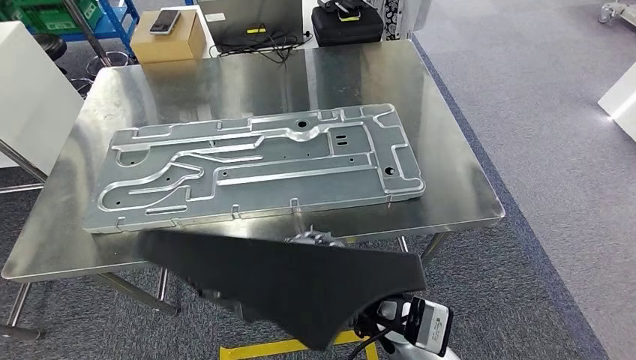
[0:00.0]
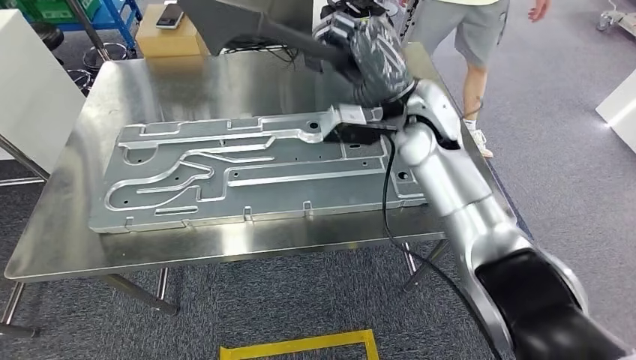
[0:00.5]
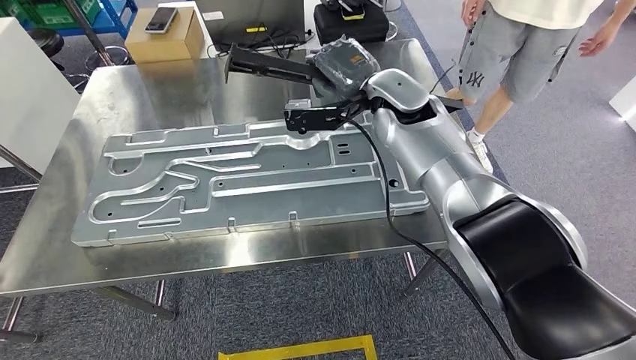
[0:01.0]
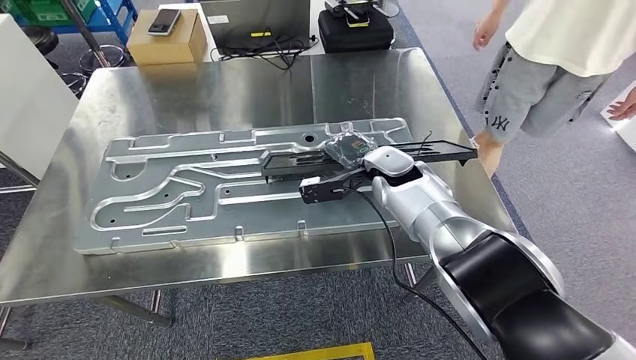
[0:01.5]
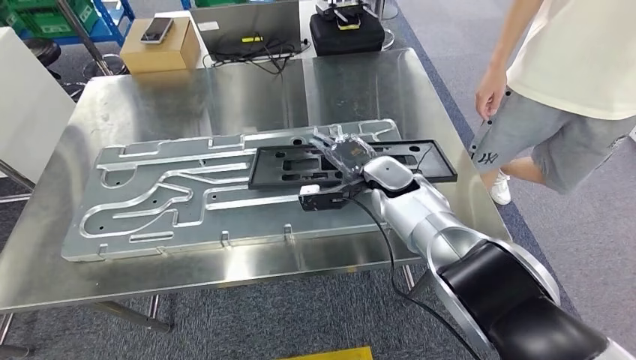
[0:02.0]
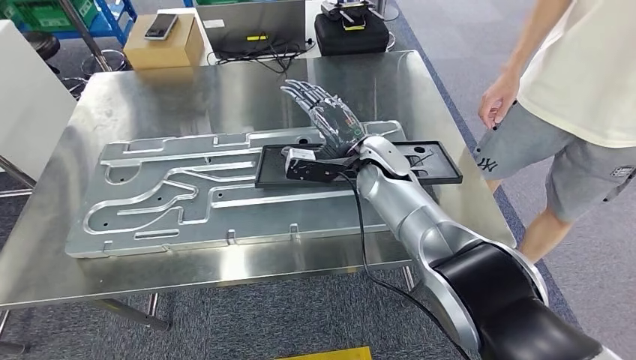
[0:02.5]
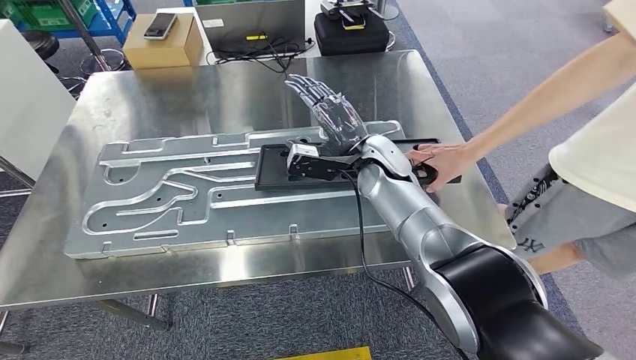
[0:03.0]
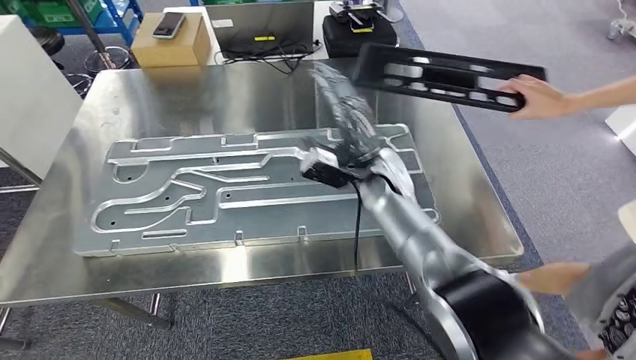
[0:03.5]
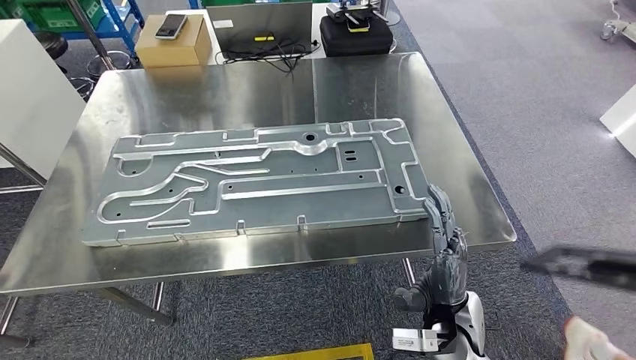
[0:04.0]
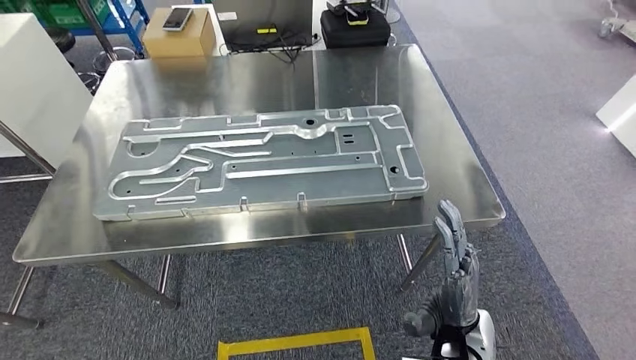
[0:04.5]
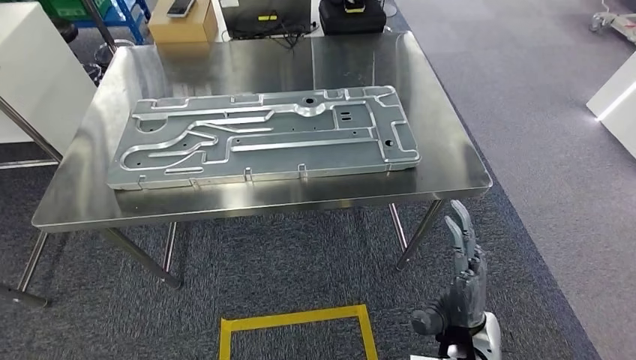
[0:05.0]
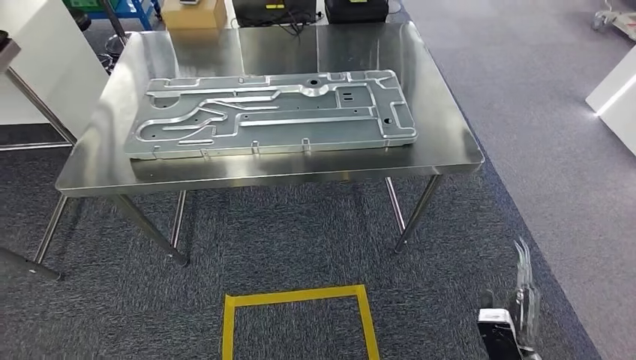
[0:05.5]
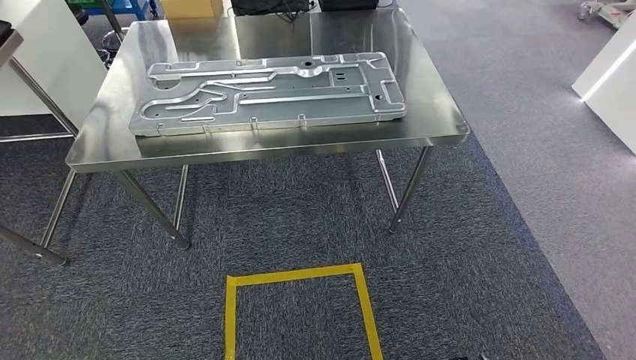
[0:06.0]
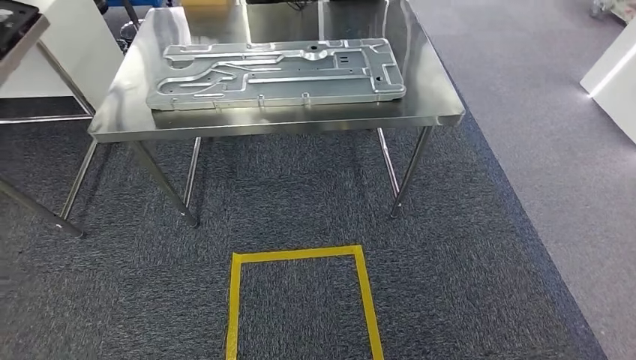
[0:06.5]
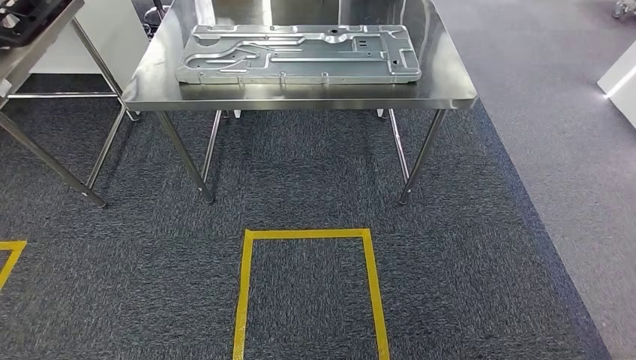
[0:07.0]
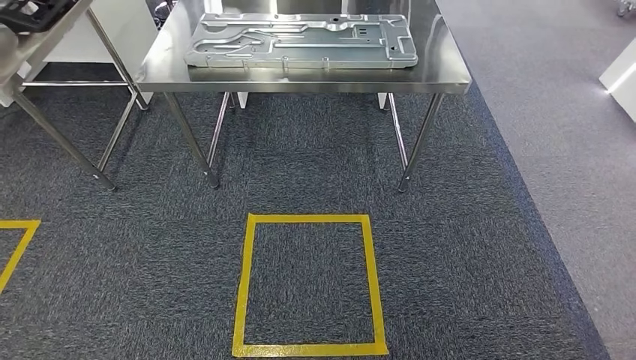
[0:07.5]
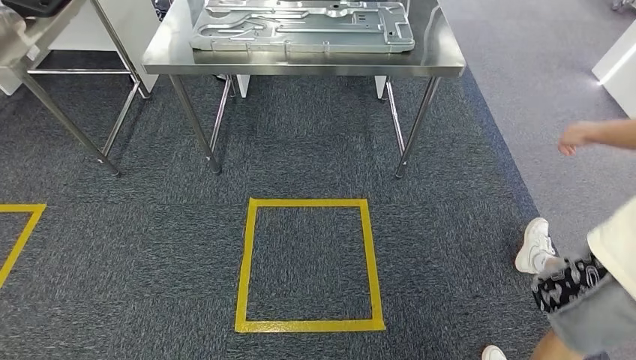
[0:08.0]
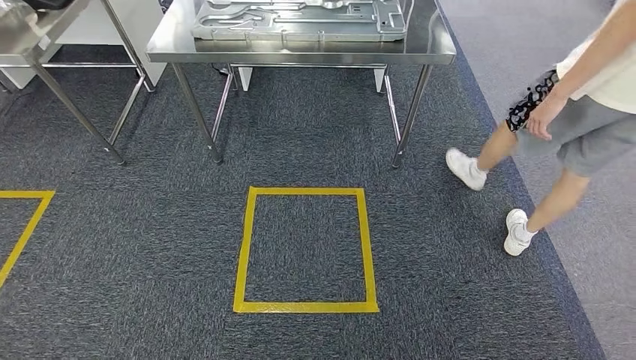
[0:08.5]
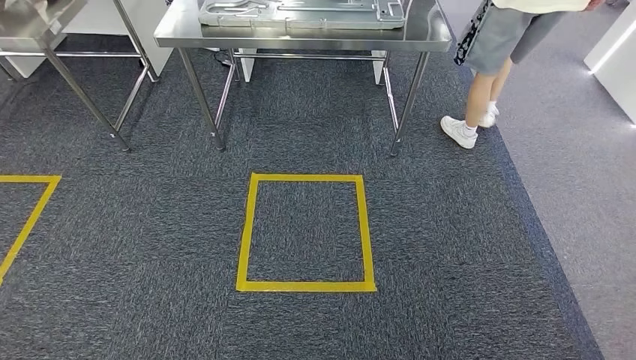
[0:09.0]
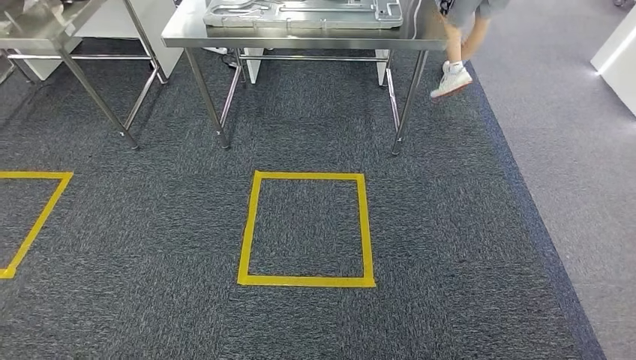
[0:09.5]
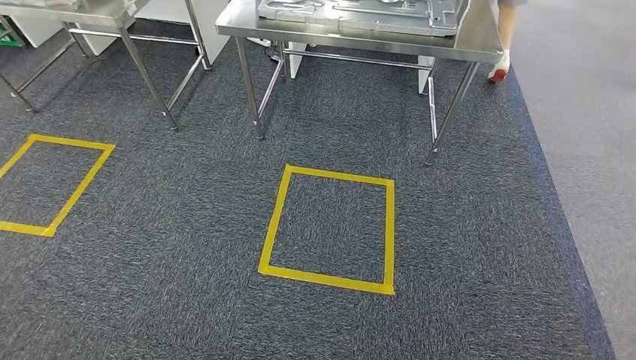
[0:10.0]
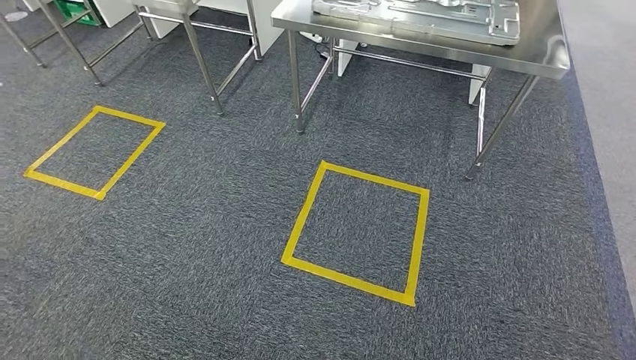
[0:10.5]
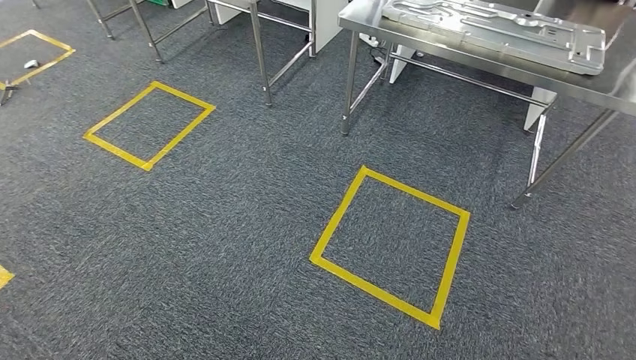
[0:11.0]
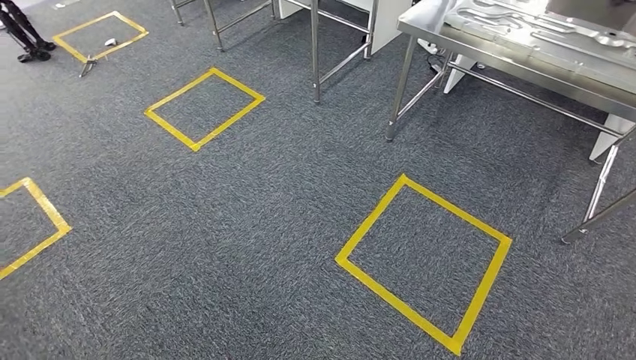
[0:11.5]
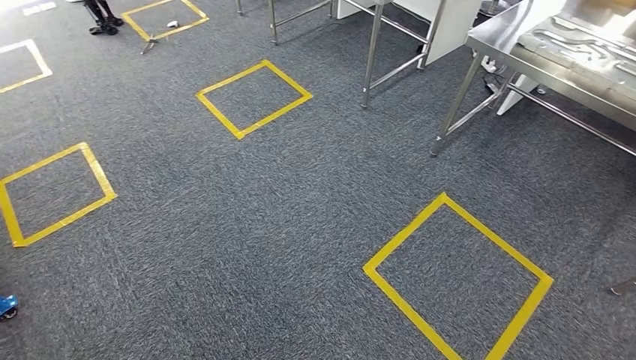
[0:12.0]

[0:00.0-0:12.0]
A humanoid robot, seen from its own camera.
Step, 0:00.0 to 0:04.5: Insert the large material into the corresponding slot on the workbench.

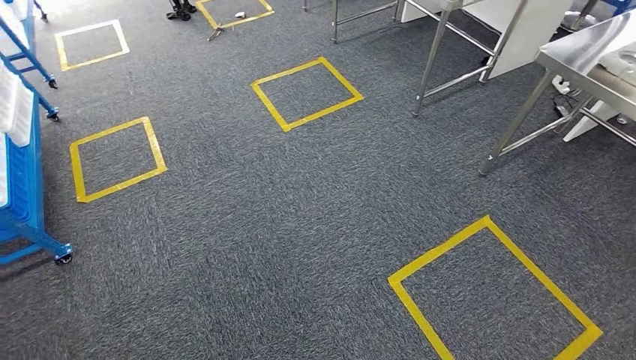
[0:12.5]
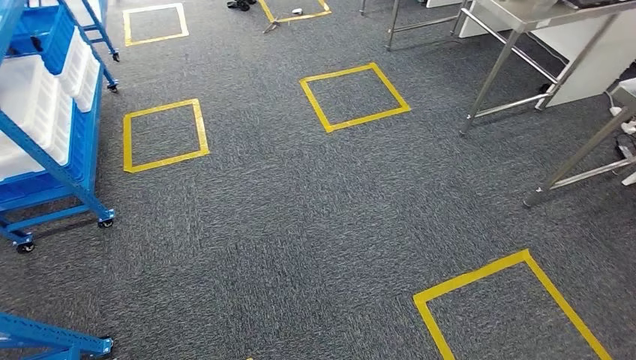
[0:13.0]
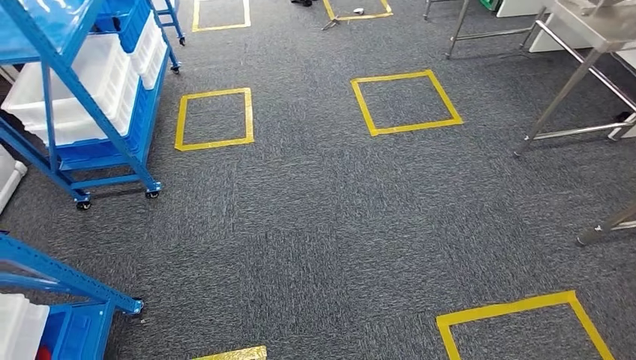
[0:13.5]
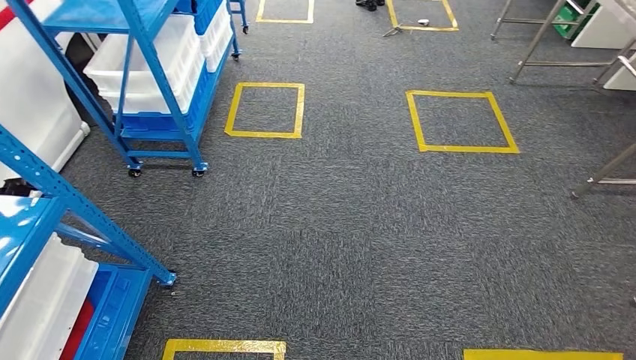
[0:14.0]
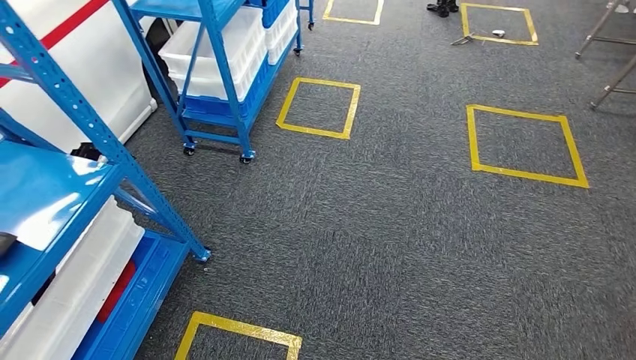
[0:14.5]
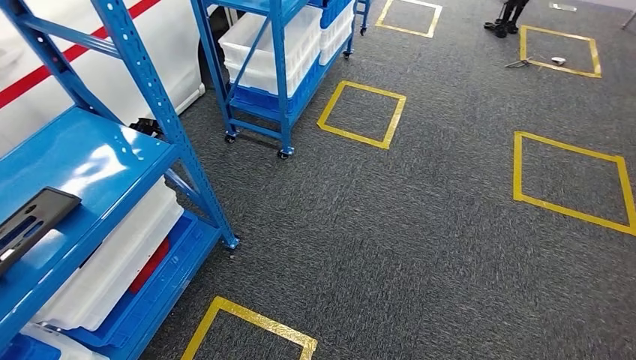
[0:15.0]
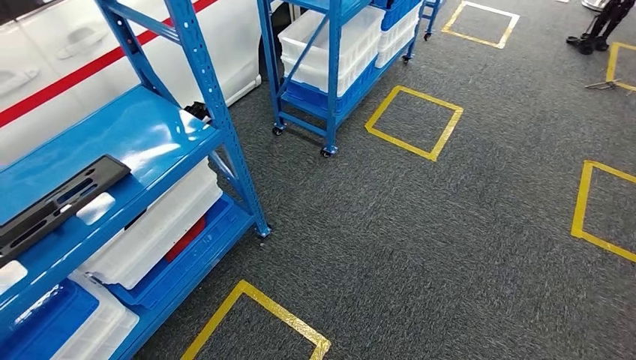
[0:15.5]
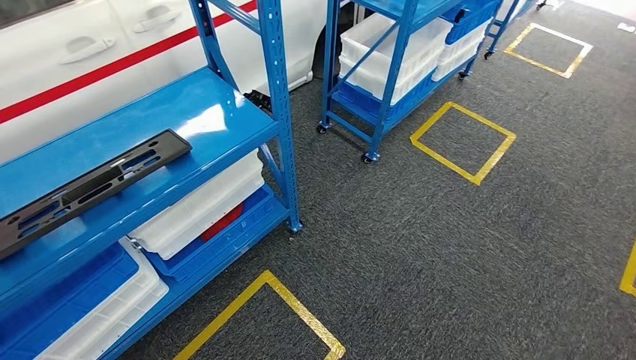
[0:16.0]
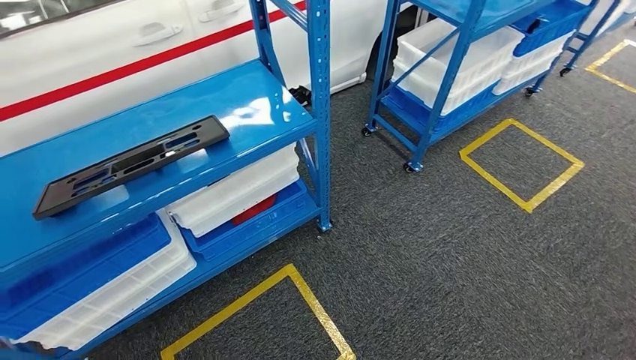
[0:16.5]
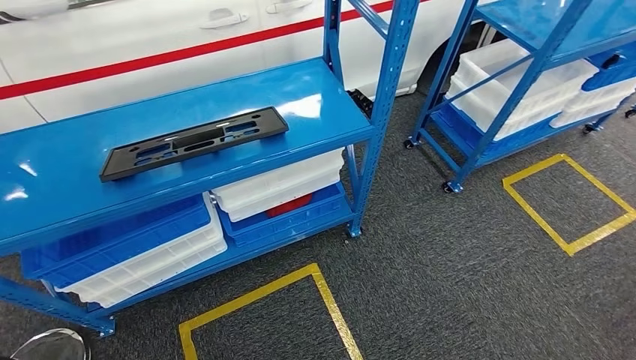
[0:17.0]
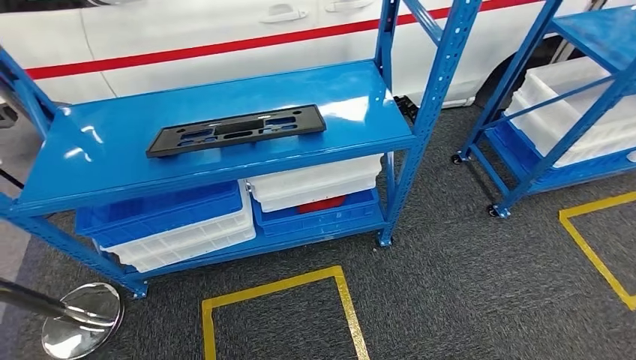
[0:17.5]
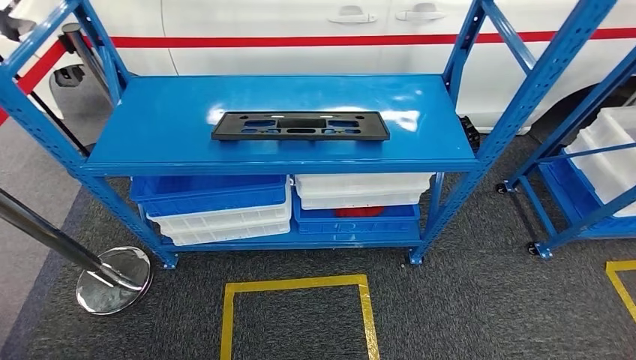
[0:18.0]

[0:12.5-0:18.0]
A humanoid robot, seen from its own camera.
Step, 0:12.5 to 0:18.0: Return to the initial position at the shelf.

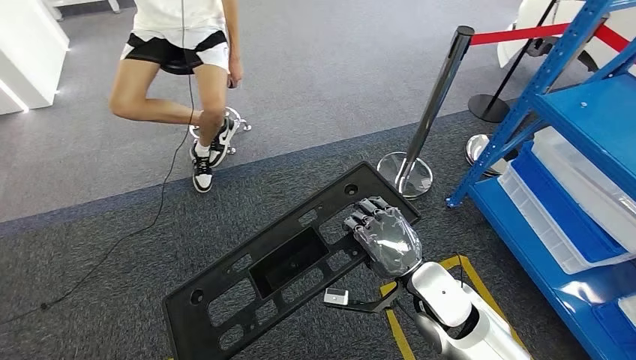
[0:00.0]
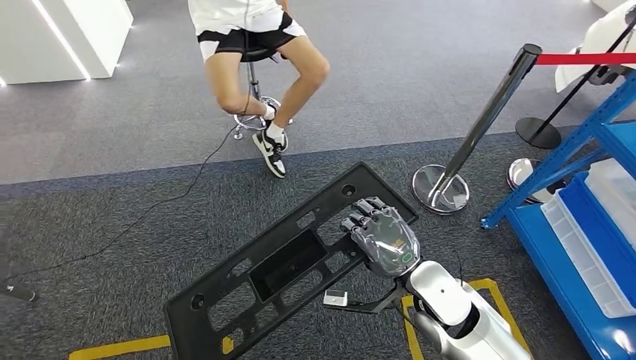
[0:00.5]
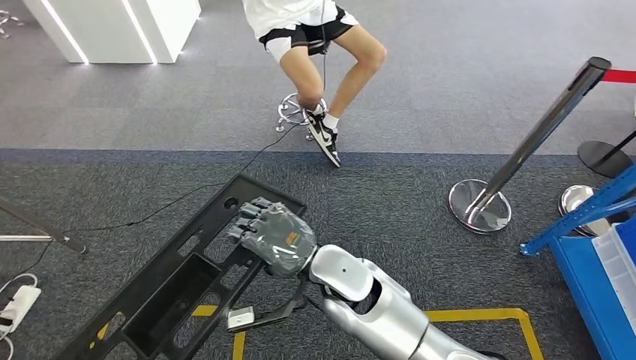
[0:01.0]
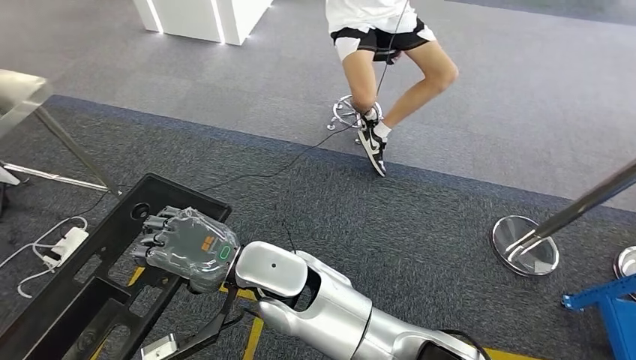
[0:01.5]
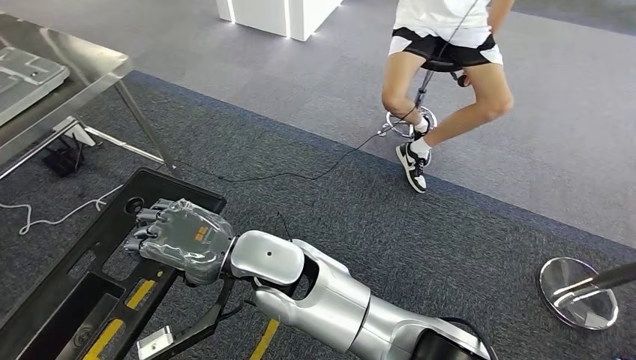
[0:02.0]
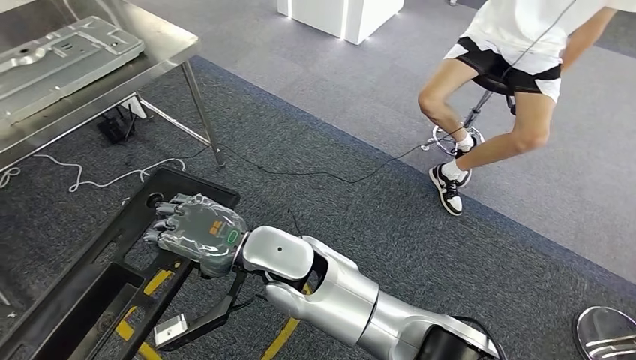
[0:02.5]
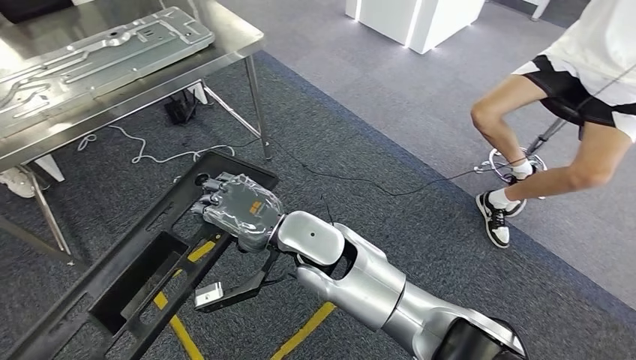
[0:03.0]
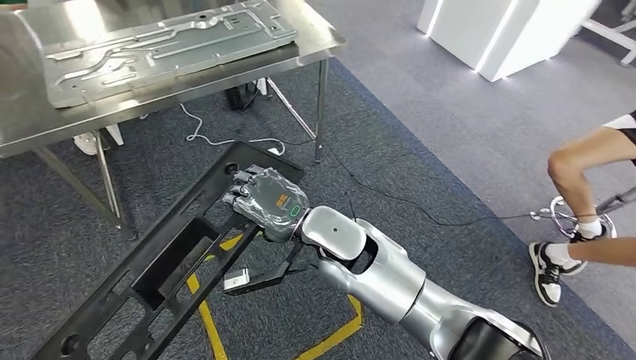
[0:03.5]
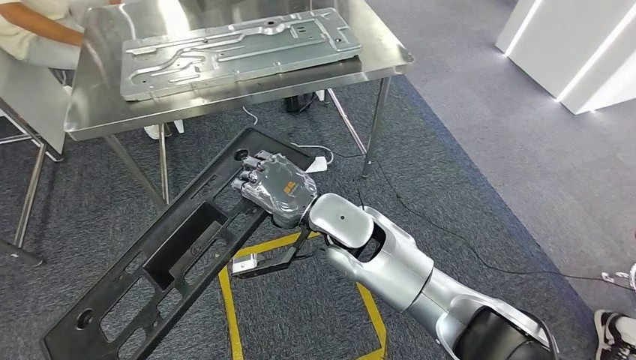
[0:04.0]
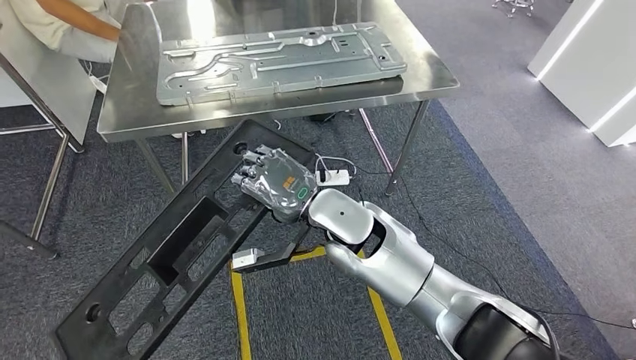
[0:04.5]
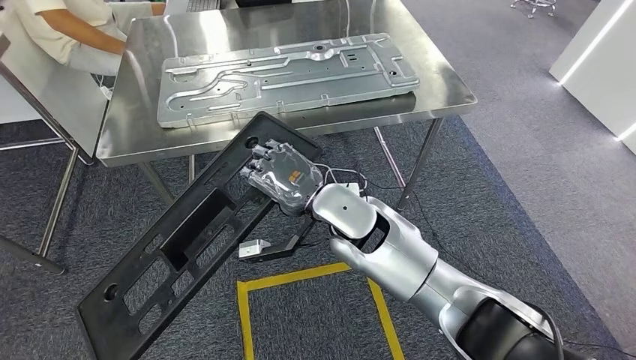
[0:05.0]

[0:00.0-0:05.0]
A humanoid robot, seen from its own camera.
Step, 0:00.0 to 0:04.5: Move the large material to the workbench.
